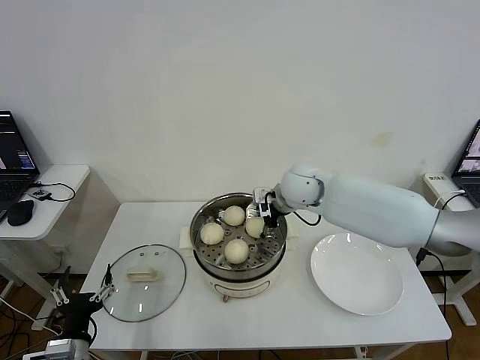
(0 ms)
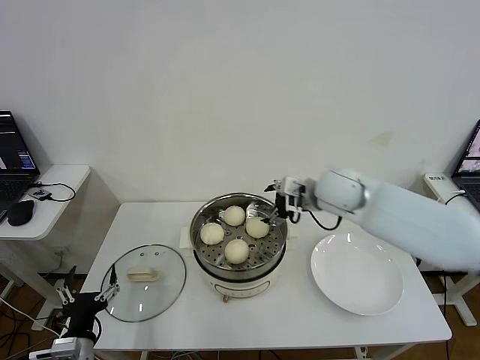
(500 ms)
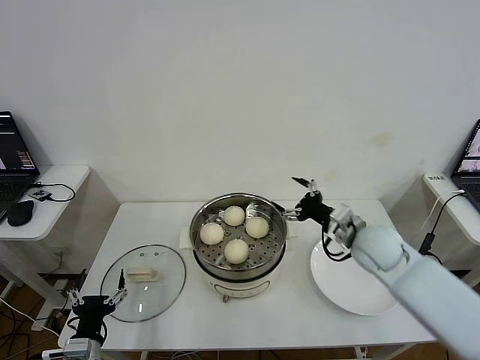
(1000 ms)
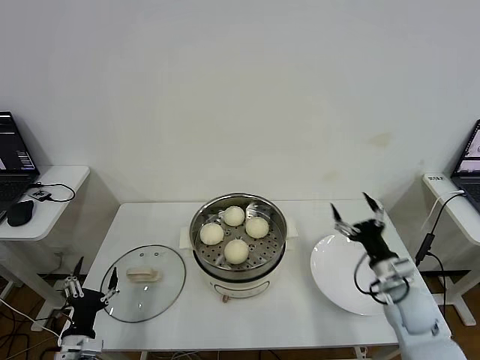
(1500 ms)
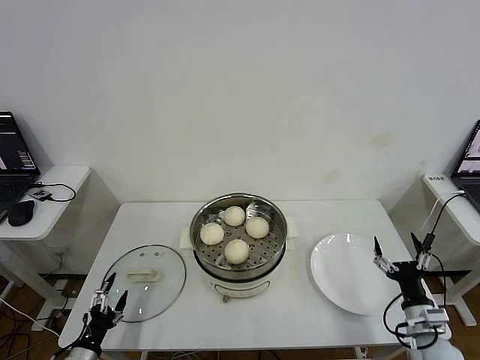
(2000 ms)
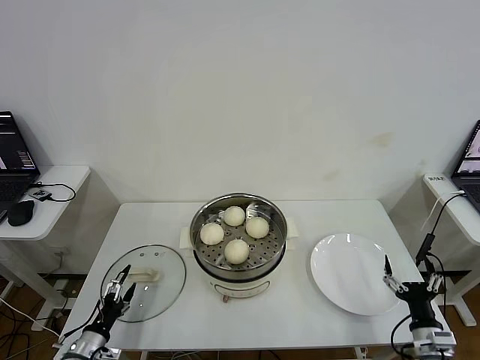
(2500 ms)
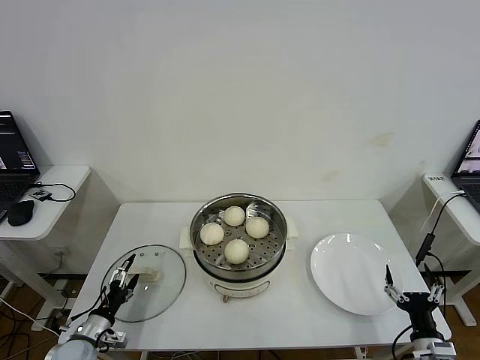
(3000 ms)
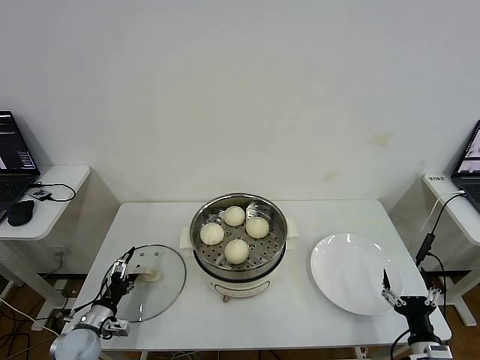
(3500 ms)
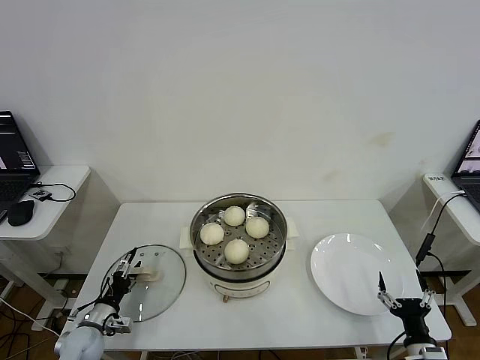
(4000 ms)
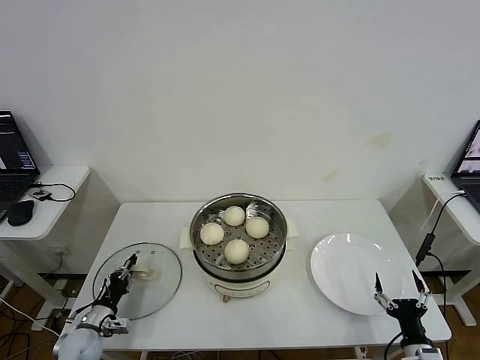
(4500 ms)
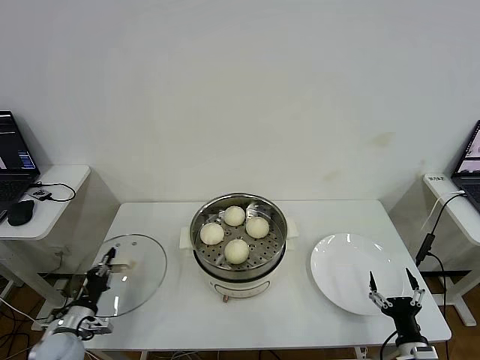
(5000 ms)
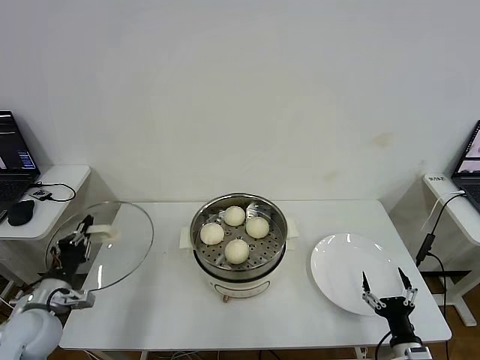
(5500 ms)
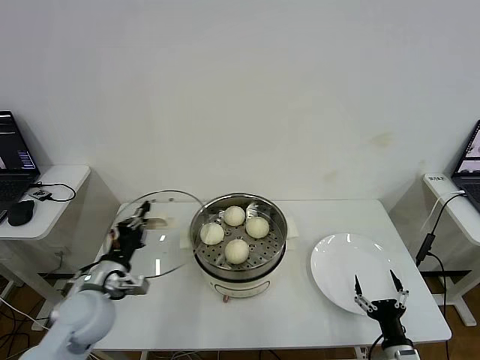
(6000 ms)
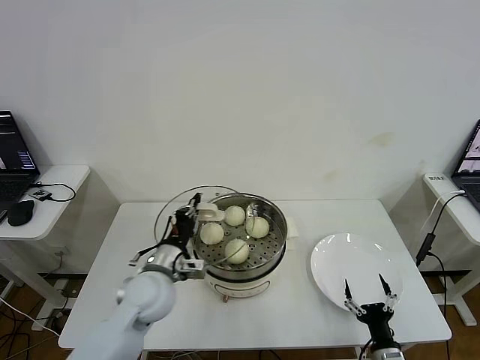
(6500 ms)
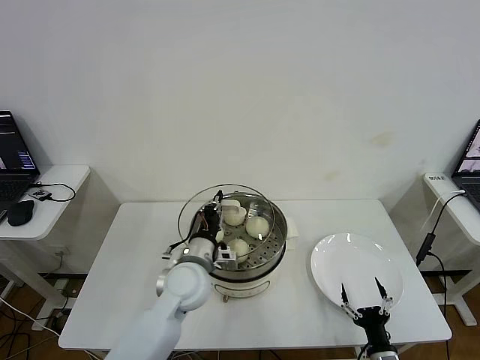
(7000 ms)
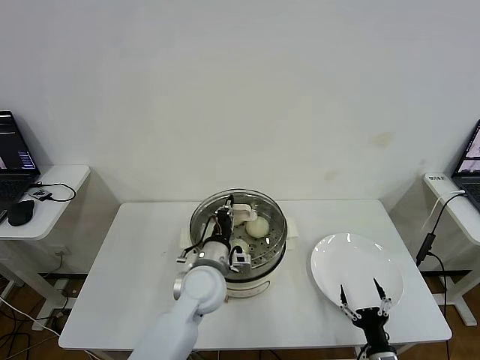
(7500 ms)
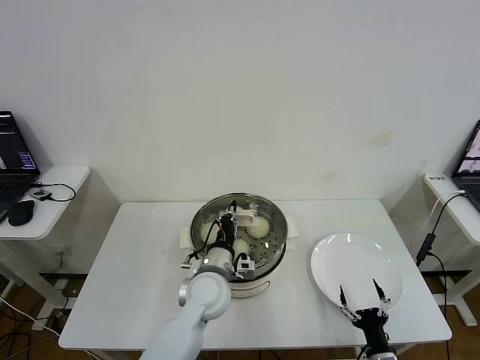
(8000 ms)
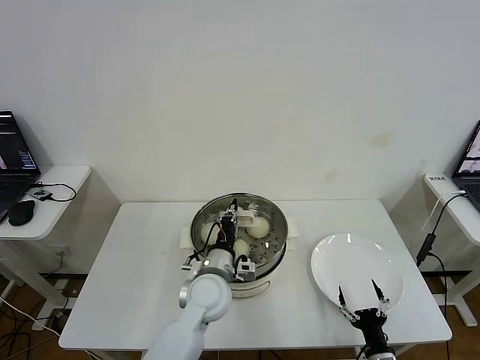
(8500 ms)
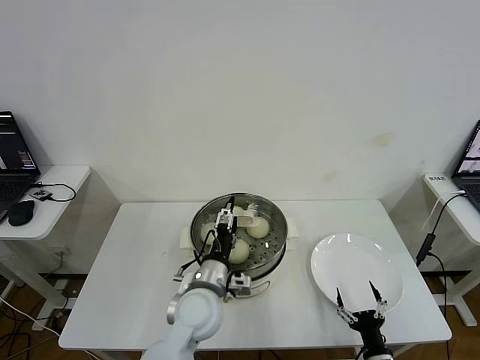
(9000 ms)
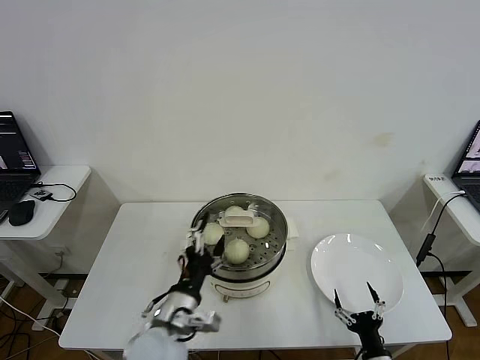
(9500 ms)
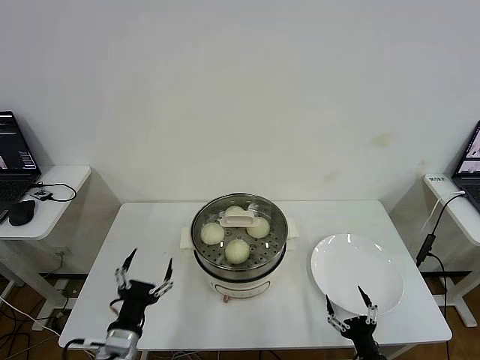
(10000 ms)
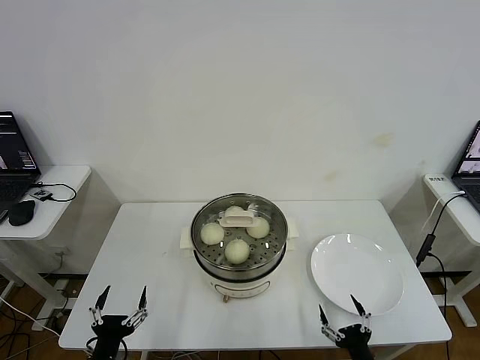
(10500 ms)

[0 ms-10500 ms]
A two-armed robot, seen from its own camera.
Step, 500 ms to 4500 ms: Grasp the pot lid with left gripper.
Step, 5000 ms to 8500 ms: Place the pot lid on the steamer with left gripper.
0 ms to 2000 ms: The left gripper moves downward and to the left, some 10 cm; the right gripper is displaced backward, to the right and downward by approximately 50 cm.
2000 ms to 4000 ms: The left gripper travels forward by about 10 cm. Meanwhile the right gripper heads backward and downward, covering some 10 cm.
4000 ms to 6500 ms: The right gripper shifts some 5 cm to the left. Meanwhile the left gripper goes approximately 30 cm to the right and upward, and closes.
6500 ms to 8500 ms: The left gripper is displaced to the right by roughly 10 cm.
8500 ms to 10500 ms: The left gripper is displaced to the left and backward by approximately 30 cm, and opens its fingers; the right gripper ends up approximately 5 cm from where it was.

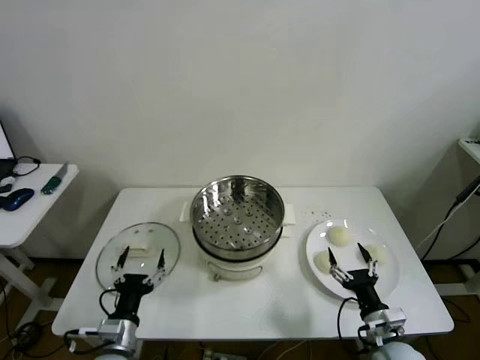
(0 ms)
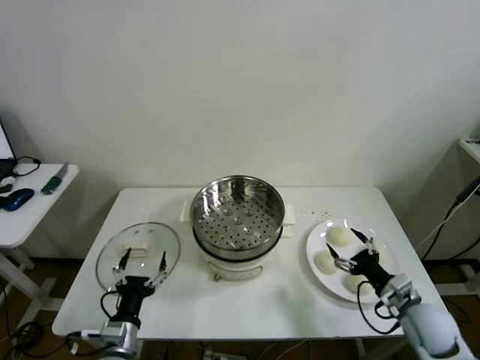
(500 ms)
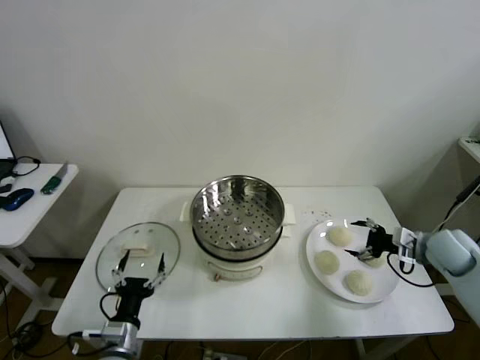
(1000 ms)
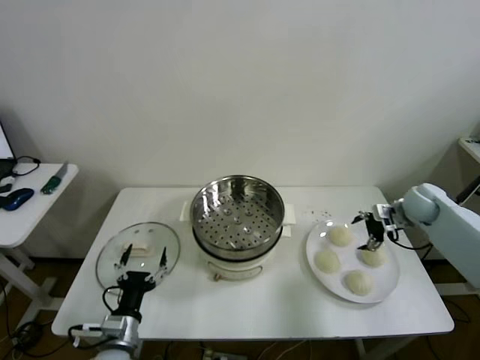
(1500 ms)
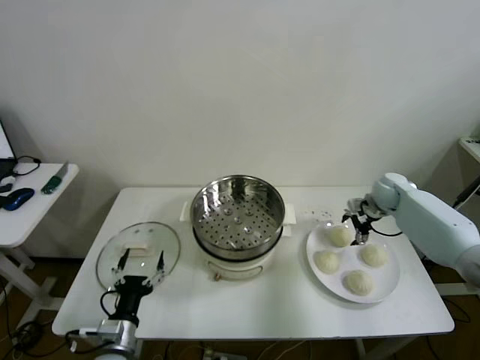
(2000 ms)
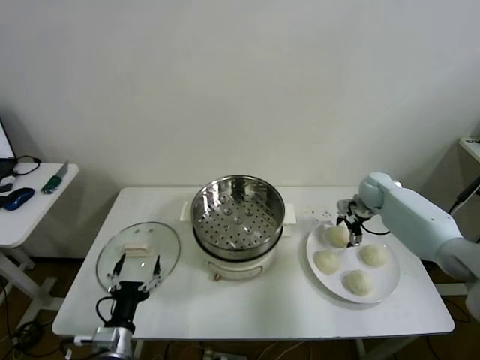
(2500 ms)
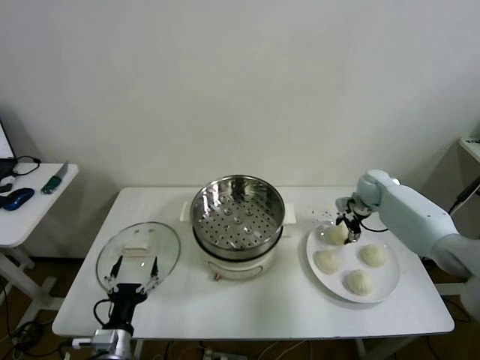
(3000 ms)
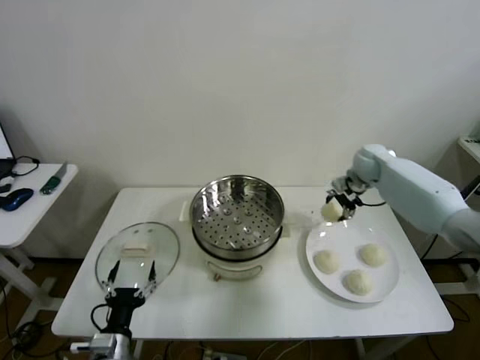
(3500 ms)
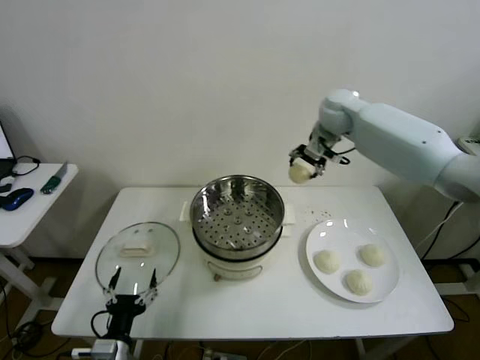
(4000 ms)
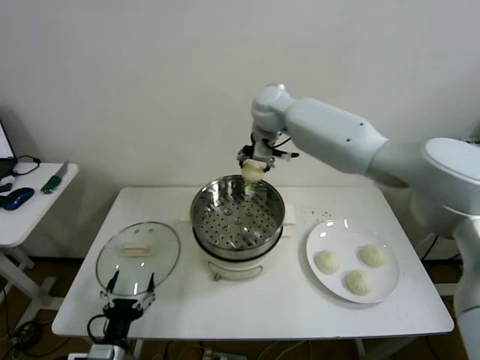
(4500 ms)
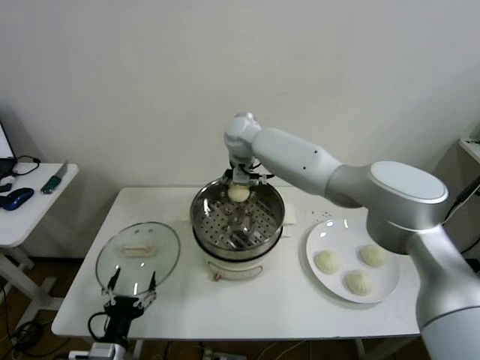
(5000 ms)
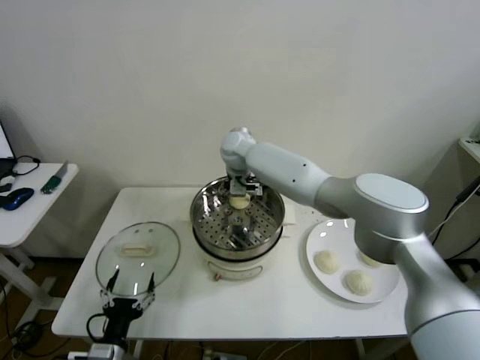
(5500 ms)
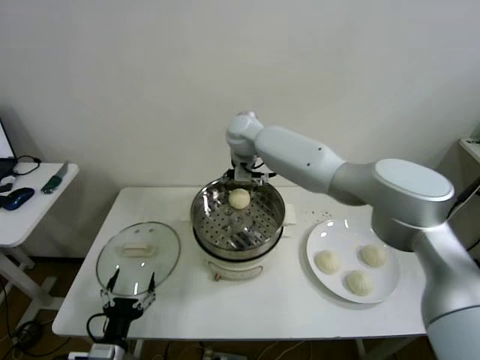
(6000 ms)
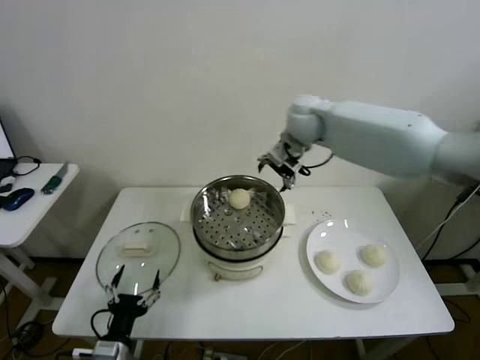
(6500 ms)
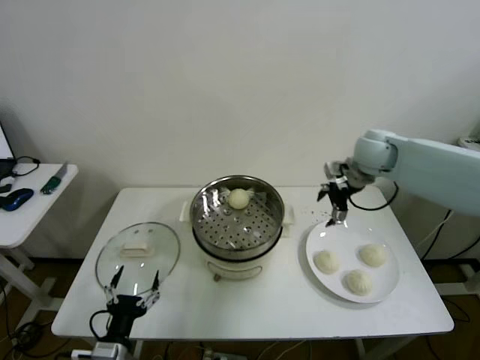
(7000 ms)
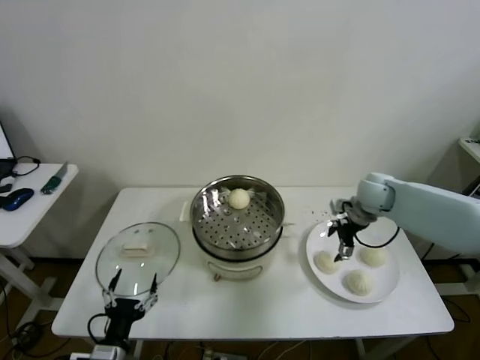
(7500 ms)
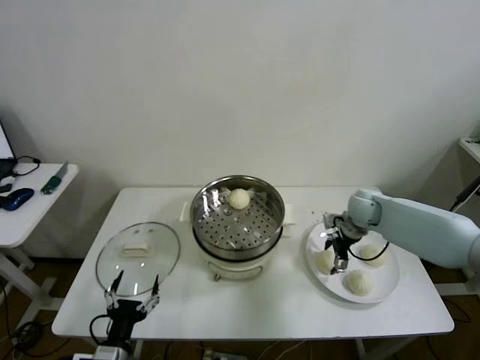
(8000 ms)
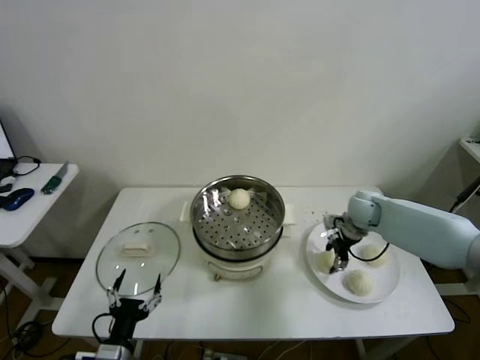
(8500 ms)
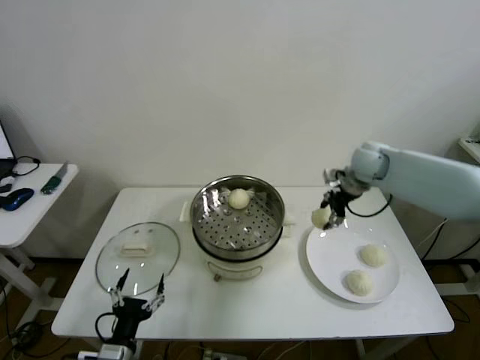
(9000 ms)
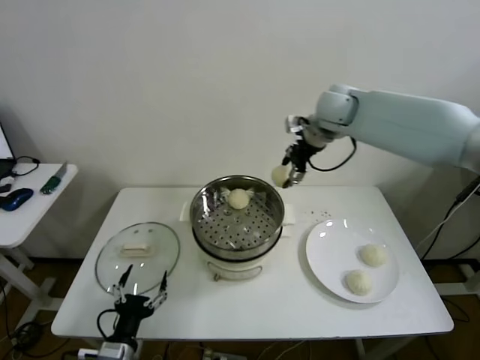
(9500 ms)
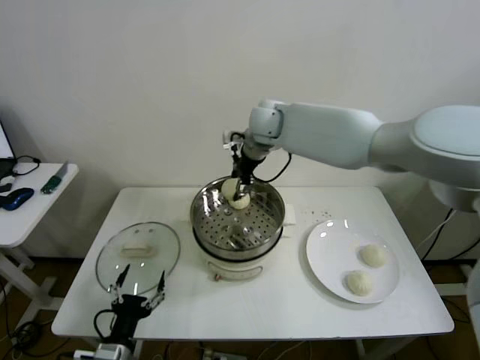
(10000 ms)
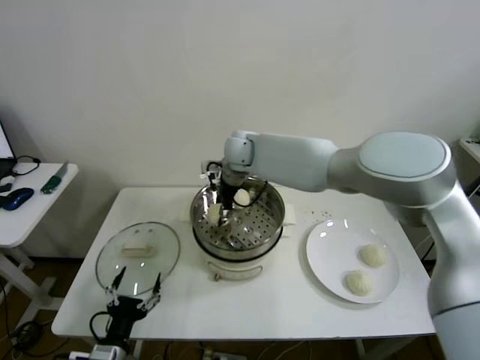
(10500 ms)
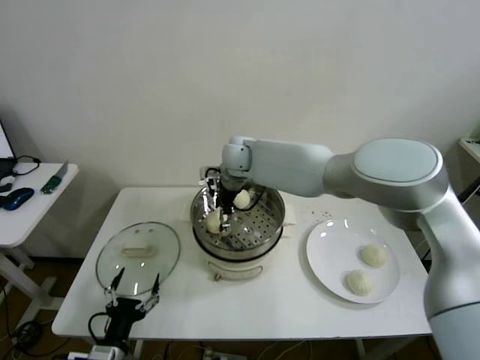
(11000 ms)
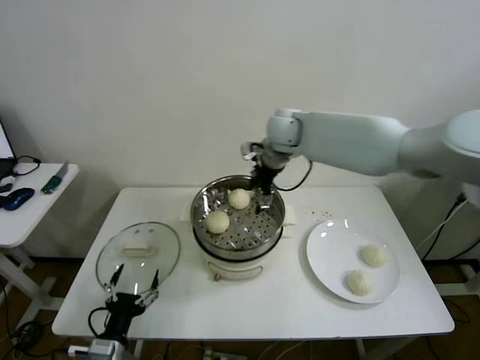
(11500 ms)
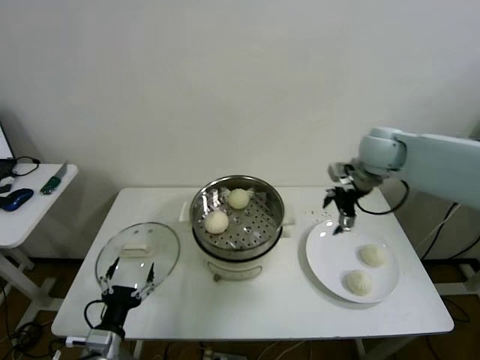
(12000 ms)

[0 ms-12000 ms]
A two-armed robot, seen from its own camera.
Step, 0 ms to 2500 ms: Grasp the baozi in the plate with right gripper.
Step, 3000 ms to 5000 ms: Place the baozi on the steamer with right gripper.
Step, 5500 ms to 8000 ms: Grasp the baozi in the plate with right gripper.
Step, 8500 ms to 10500 ms: Place the baozi on the steamer with right gripper.
2000 ms to 4000 ms: The right gripper travels upward and to the left by some 30 cm, and closes up.
4000 ms to 6000 ms: The right gripper heads to the left, covering some 20 cm, and opens.
6000 ms to 8000 ms: The right gripper travels to the right and downward by approximately 35 cm.
8000 ms to 10000 ms: The right gripper travels to the left and upward by some 35 cm, and closes.
10000 ms to 12000 ms: The right gripper goes some 25 cm to the right, and opens.

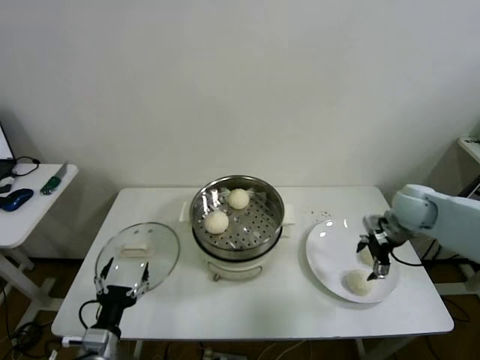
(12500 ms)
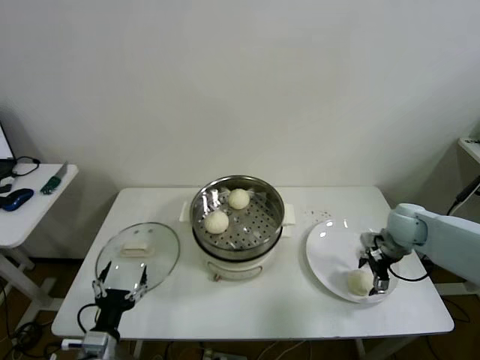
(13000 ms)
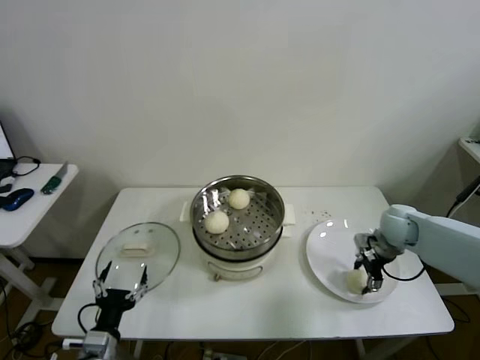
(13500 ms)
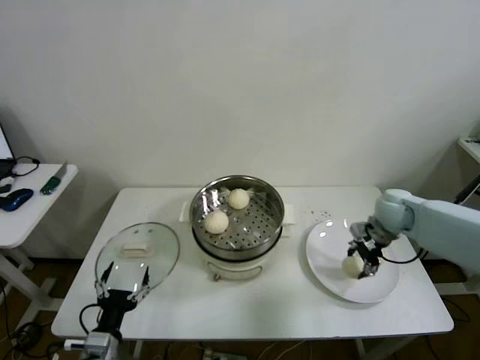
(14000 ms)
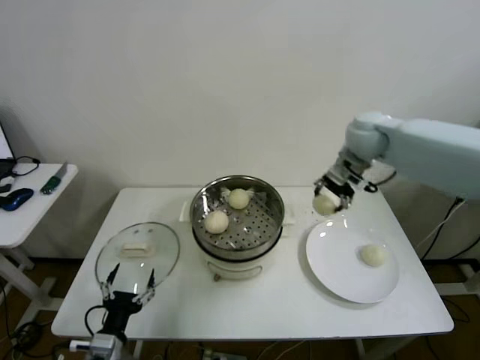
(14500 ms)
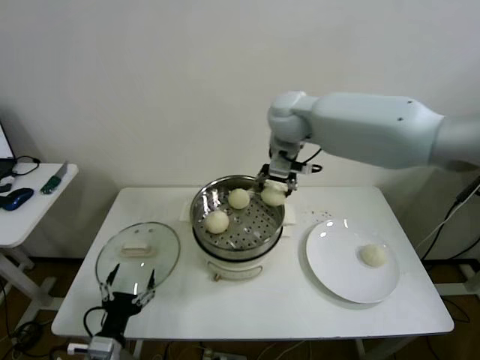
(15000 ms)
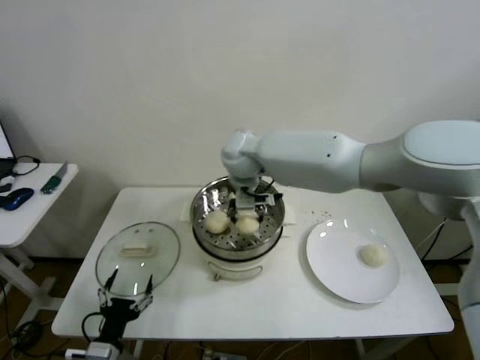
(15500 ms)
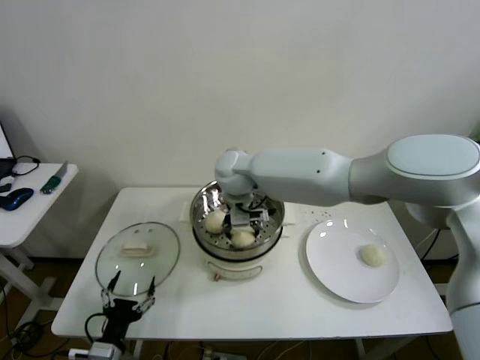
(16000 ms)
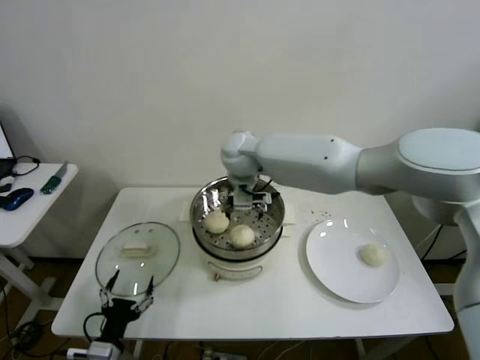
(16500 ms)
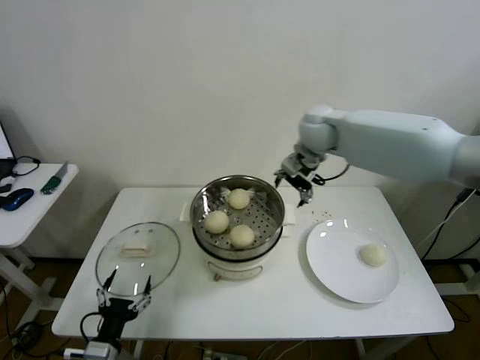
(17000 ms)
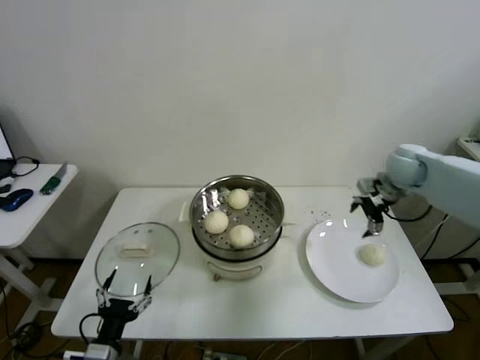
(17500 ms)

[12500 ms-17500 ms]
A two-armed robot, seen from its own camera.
Step, 13500 ms to 16000 ms: Place the baozi on the steamer with right gripper.
12500 ms to 15000 ms: The right gripper goes approximately 35 cm to the left and upward, and closes.
15000 ms to 17500 ms: The right gripper shifts about 30 cm to the right and downward, and opens.
